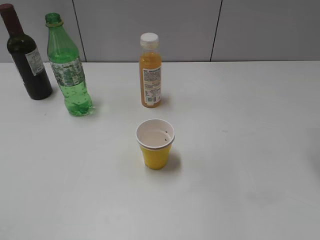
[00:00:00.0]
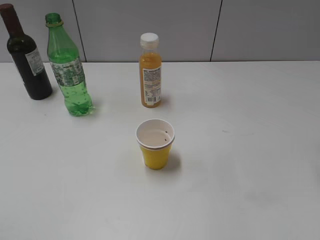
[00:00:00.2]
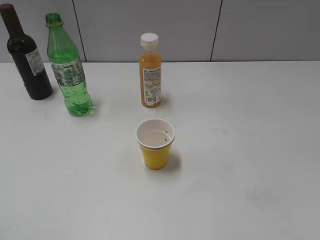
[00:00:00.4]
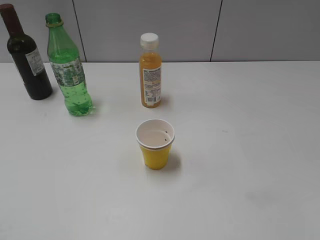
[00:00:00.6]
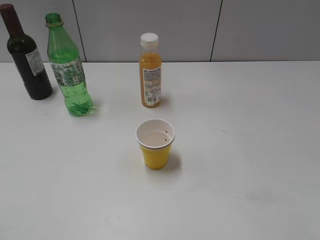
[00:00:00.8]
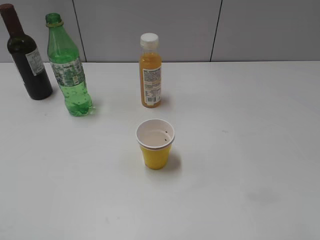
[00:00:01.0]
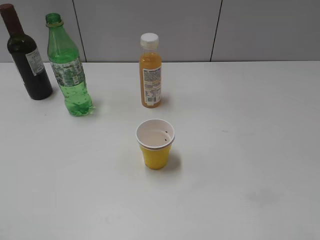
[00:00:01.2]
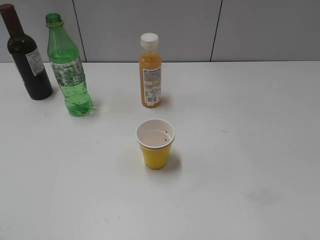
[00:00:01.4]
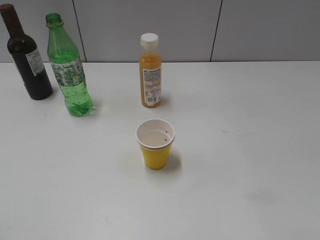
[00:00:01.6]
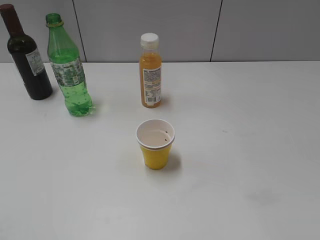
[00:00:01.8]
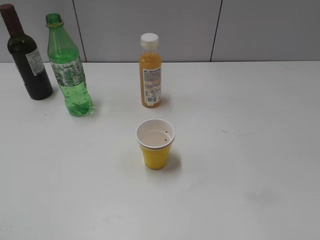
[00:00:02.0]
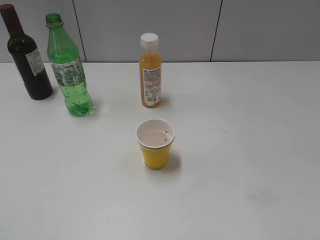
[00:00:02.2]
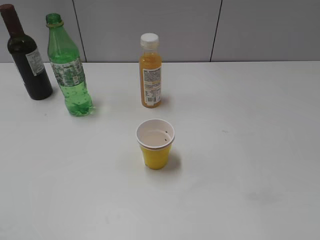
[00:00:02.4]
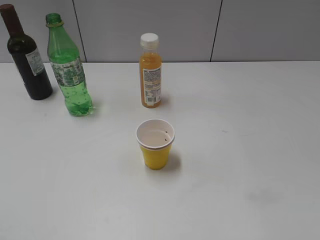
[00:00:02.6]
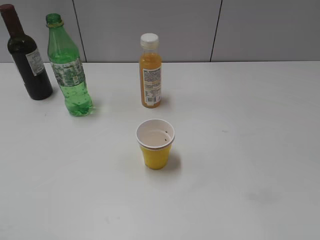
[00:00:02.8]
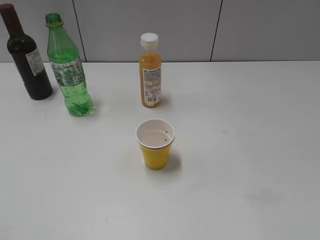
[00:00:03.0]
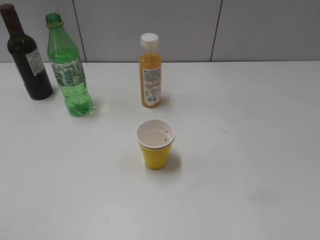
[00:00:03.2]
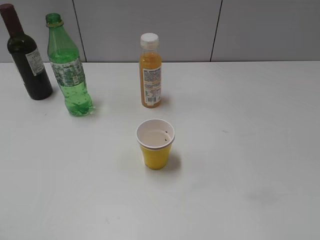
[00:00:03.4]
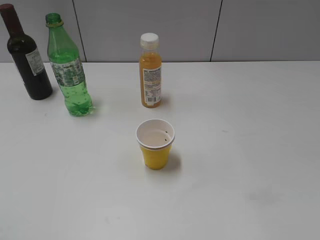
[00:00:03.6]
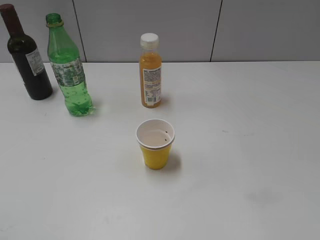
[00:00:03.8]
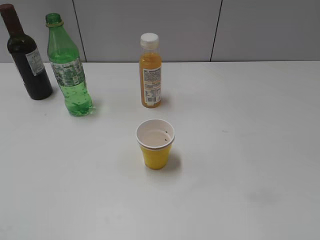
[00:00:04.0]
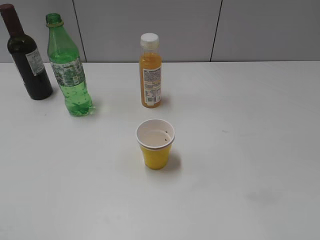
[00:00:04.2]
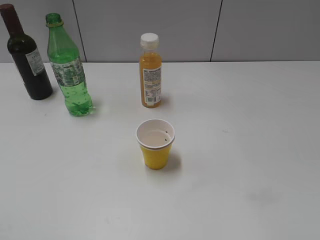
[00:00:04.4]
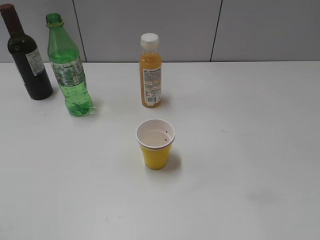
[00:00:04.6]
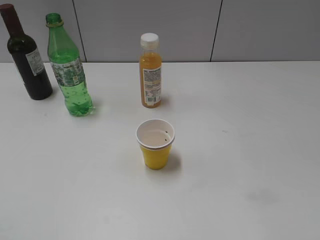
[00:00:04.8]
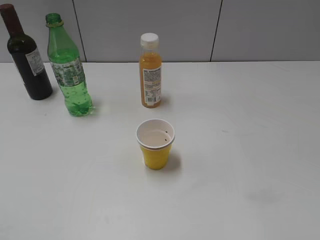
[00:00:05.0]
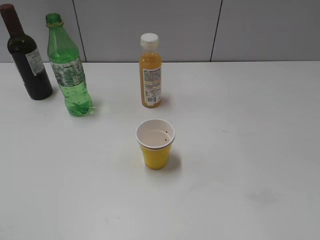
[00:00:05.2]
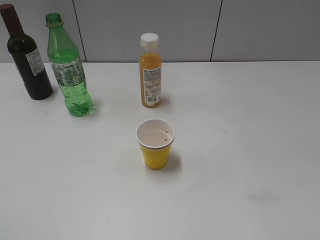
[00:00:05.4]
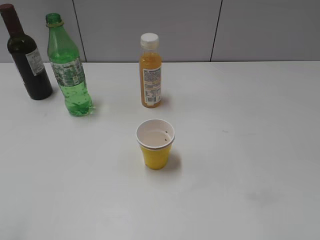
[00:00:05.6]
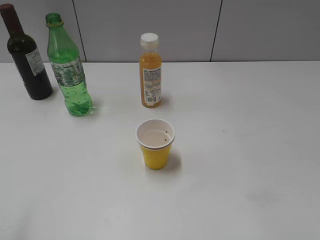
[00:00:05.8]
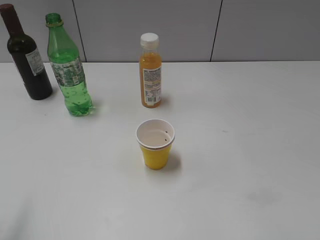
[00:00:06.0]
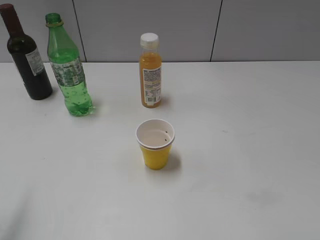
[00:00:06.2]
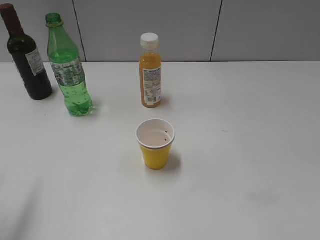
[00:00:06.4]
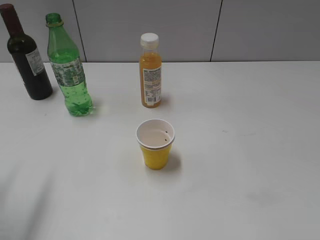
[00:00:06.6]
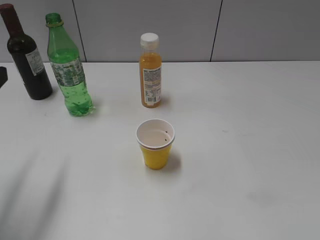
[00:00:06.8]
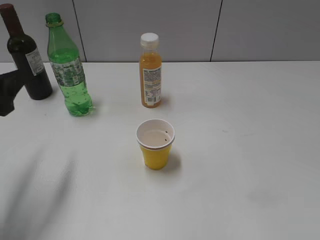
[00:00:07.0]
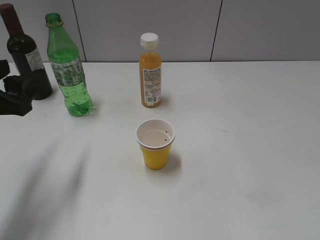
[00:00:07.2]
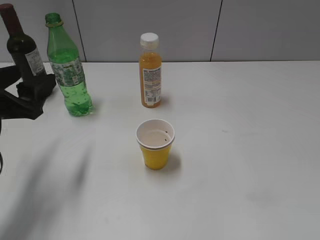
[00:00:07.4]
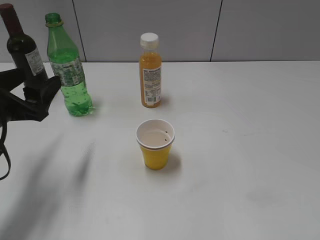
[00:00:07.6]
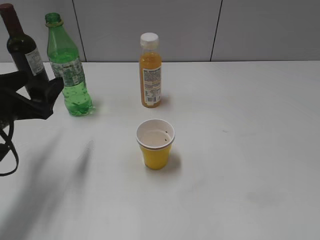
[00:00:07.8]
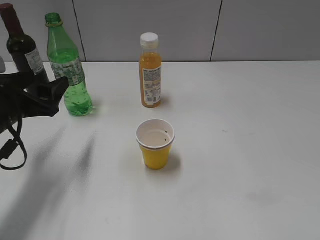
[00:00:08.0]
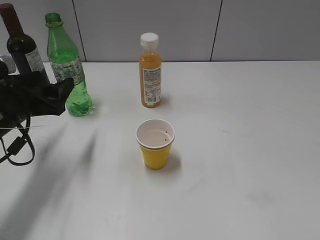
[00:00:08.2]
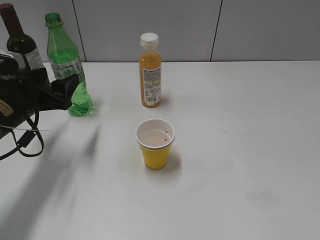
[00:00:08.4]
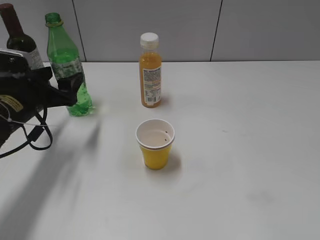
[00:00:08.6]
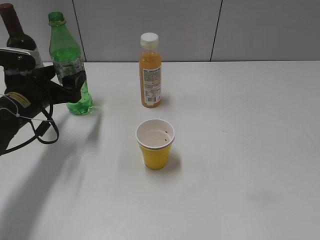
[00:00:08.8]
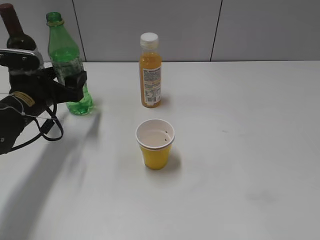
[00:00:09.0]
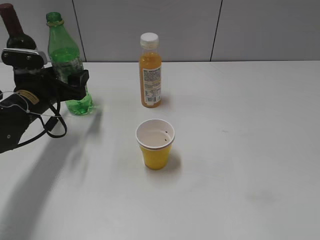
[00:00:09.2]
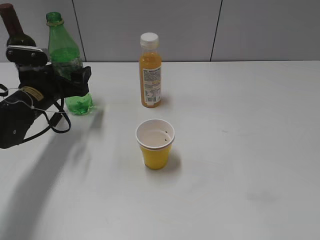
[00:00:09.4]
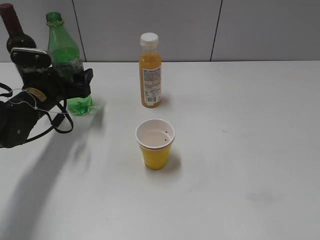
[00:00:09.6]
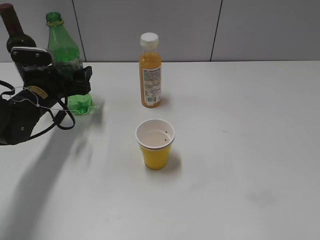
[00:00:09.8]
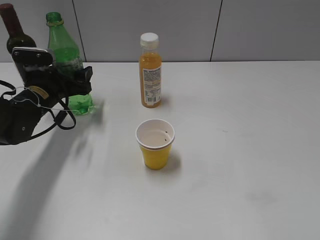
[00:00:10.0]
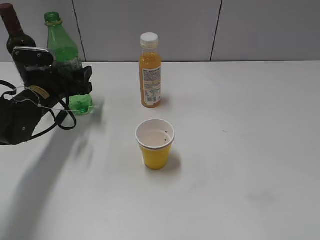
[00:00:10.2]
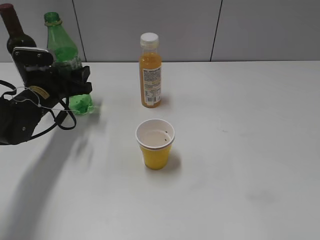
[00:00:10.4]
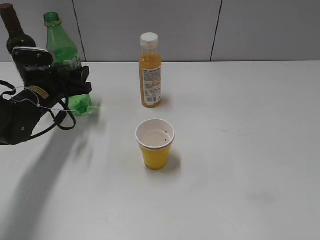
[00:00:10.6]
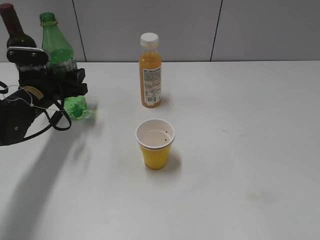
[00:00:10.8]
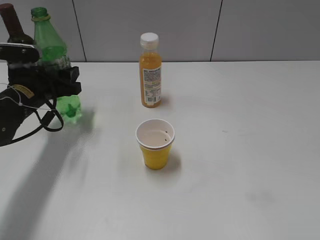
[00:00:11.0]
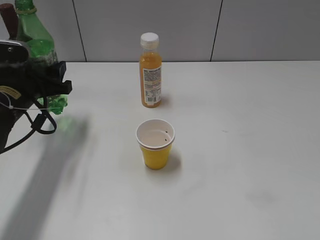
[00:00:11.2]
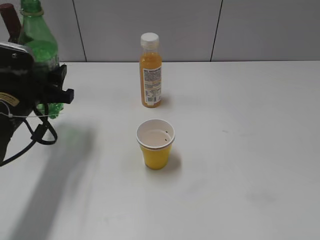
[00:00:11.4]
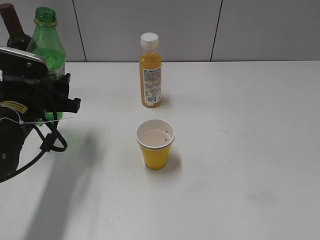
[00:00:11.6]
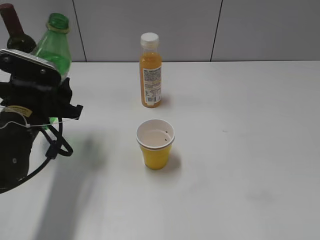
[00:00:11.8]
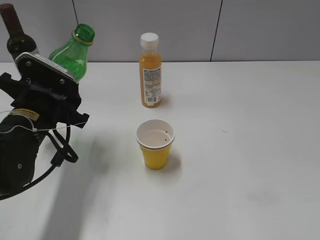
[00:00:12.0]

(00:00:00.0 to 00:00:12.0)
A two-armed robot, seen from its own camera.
Step, 00:00:00.0 - 00:00:10.4: Grasp the bottle with sprite with left gripper.
00:00:03.0 - 00:00:04.4: Both grippers stay put.
00:00:06.0 - 00:00:07.6: The left gripper goes approximately 20 cm forward and downward.
00:00:07.6 - 00:00:09.0: The left gripper is displaced forward and downward by approximately 10 cm.
00:00:09.0 - 00:00:10.4: The left gripper closes.
00:00:10.4 - 00:00:12.0: The left gripper travels backward by approximately 10 cm.

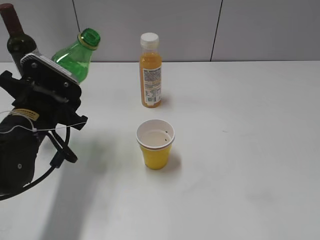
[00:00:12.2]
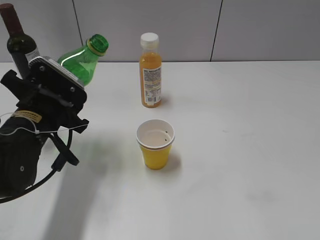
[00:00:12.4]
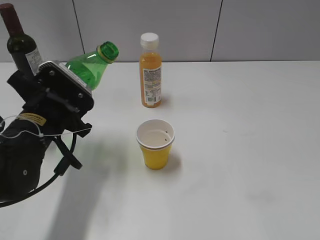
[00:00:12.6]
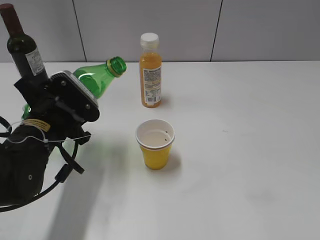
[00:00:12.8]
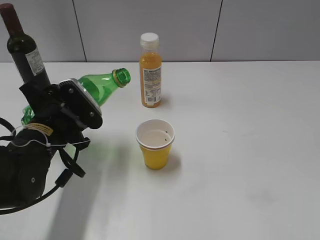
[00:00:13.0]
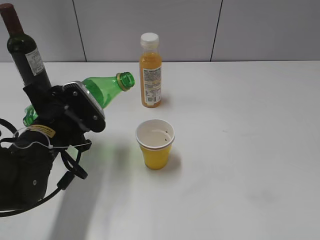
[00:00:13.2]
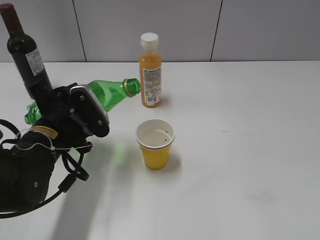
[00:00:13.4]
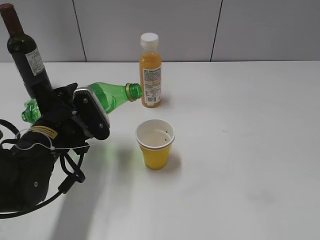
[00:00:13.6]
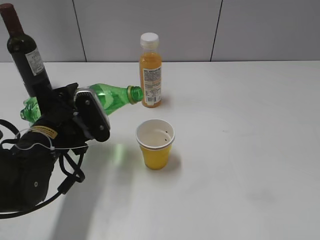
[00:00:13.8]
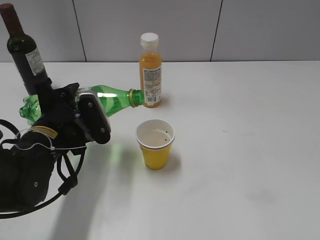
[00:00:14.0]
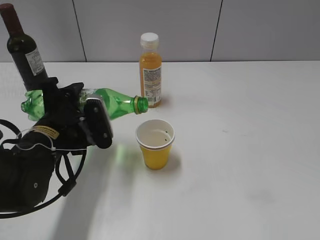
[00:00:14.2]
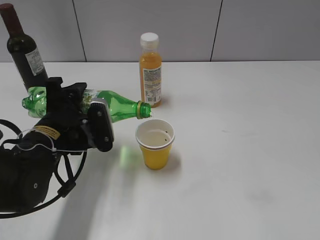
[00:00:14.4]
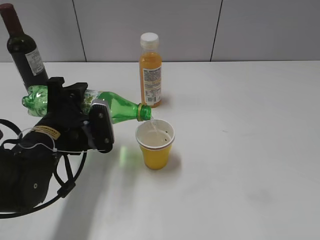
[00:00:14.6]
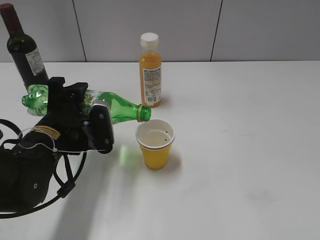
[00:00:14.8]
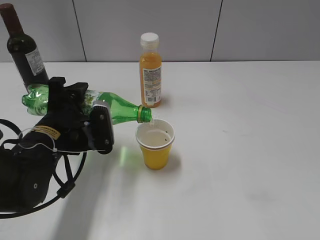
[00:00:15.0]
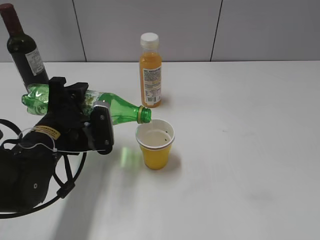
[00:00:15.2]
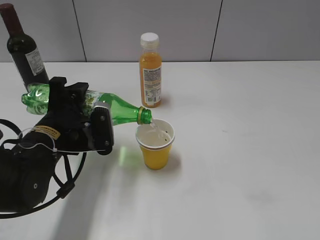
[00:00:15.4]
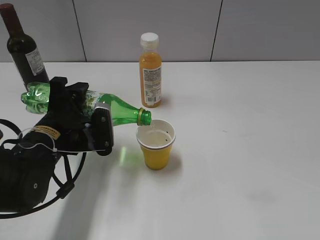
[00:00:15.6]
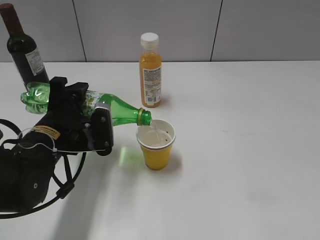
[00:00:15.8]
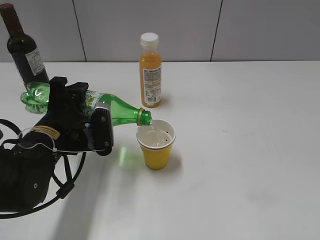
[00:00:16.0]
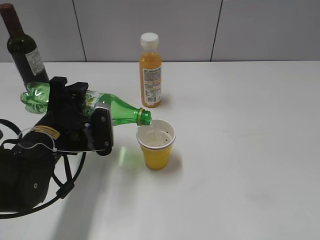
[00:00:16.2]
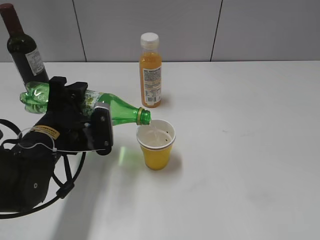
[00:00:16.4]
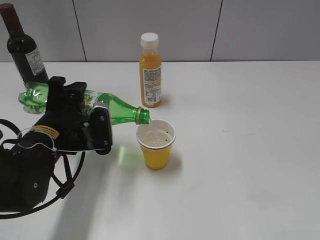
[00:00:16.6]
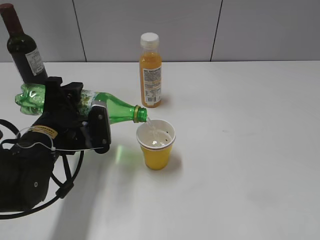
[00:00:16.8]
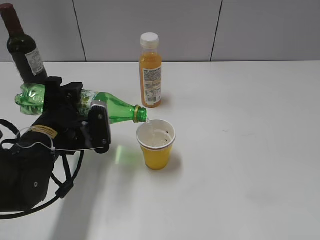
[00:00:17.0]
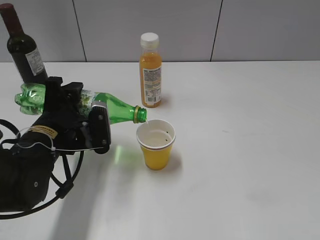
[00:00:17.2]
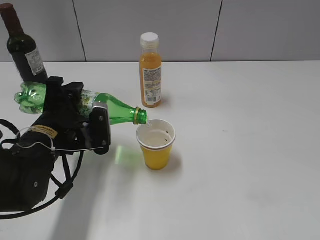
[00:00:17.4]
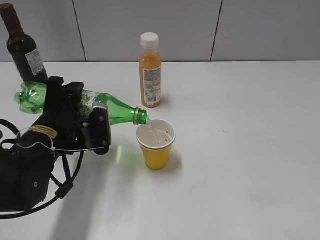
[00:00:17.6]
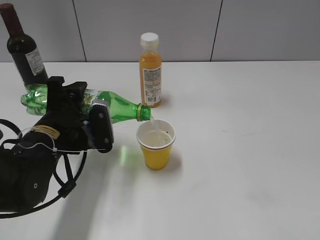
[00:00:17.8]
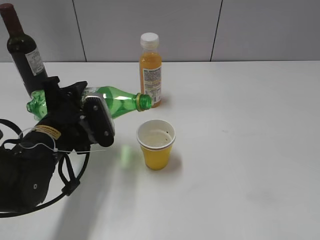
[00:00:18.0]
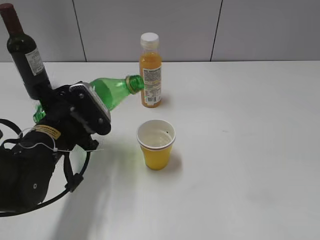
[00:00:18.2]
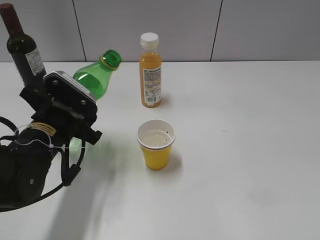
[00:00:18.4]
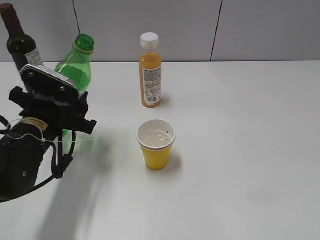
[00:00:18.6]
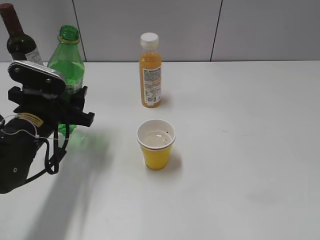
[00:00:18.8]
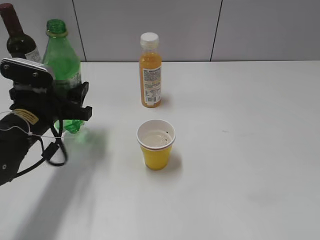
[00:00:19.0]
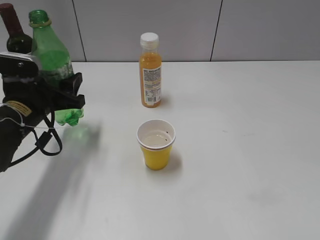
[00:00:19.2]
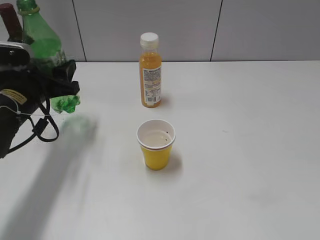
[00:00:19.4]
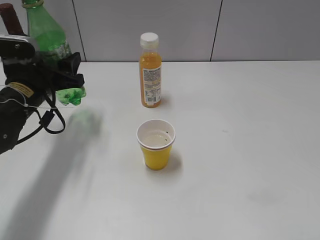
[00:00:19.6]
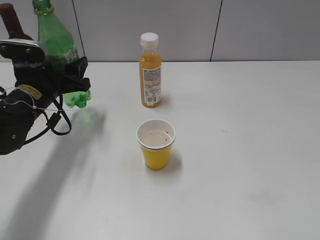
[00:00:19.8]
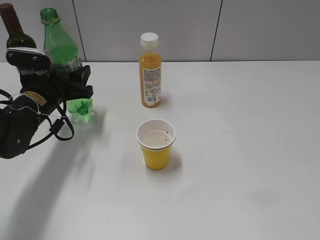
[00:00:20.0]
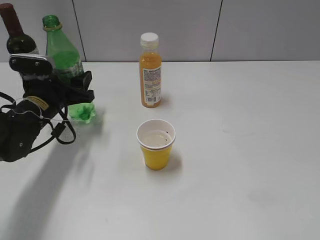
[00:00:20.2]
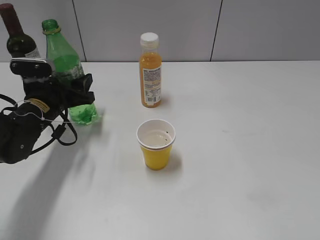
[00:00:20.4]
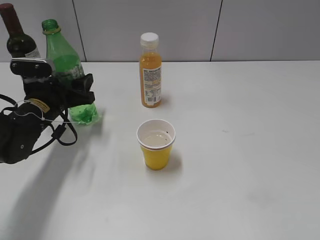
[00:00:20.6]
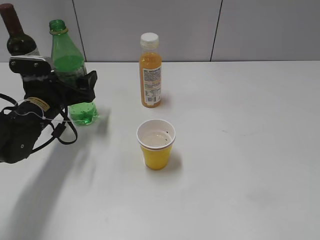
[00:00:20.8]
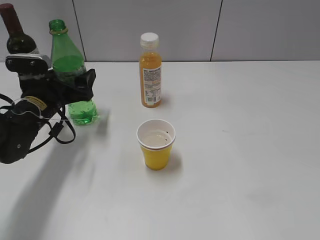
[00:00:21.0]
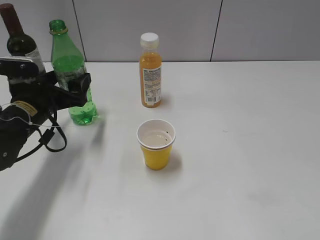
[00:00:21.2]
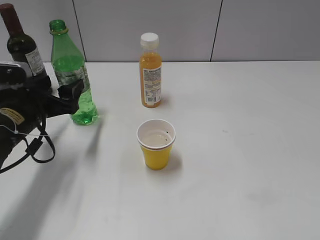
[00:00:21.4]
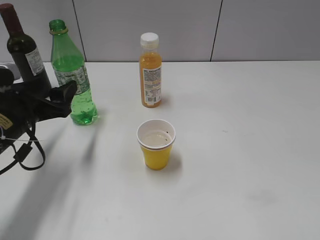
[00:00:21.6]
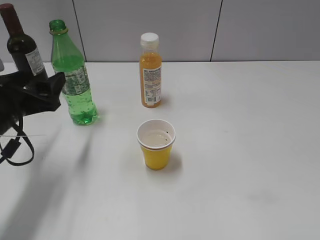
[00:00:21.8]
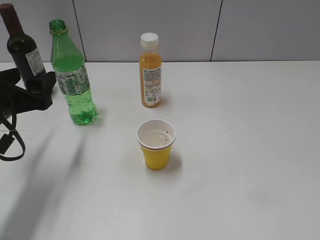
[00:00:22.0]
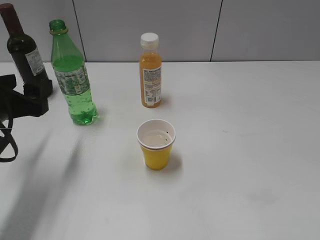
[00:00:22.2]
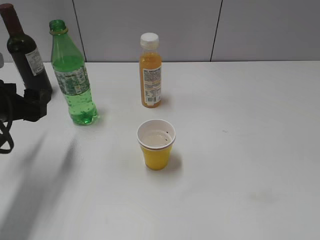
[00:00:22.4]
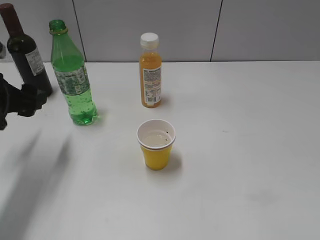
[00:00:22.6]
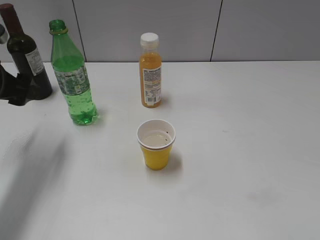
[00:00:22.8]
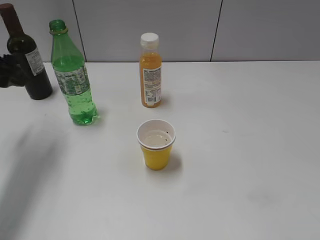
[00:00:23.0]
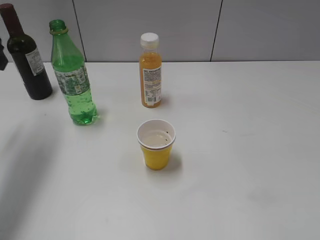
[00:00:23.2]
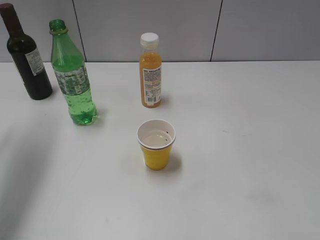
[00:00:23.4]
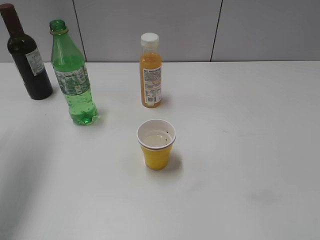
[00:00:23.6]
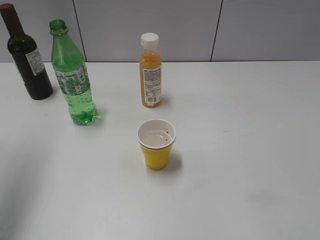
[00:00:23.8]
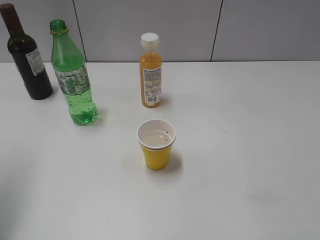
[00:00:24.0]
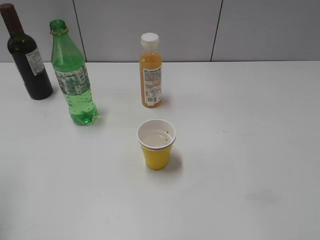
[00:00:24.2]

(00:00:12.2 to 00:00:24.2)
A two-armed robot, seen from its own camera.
Step, 00:00:12.2 - 00:00:18.2: Pour the sprite from bottle to cup with left gripper.
Step, 00:00:18.4 - 00:00:21.6: Place the sprite bottle on the table with left gripper.
00:00:13.8 - 00:00:15.2: The grippers make only small movements.
00:00:15.2 - 00:00:16.6: Both grippers stay put.
00:00:18.2 - 00:00:19.8: The left gripper travels forward and to the left by approximately 10 cm.
00:00:19.8 - 00:00:21.2: The left gripper opens.
00:00:21.2 - 00:00:22.6: The left gripper shifts about 5 cm upward.
00:00:22.6 - 00:00:24.2: The left gripper moves upward and backward, about 20 cm.
